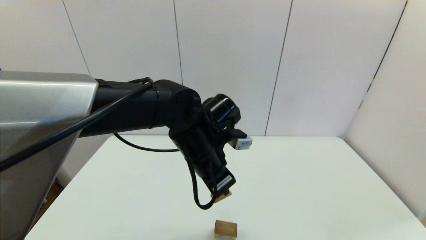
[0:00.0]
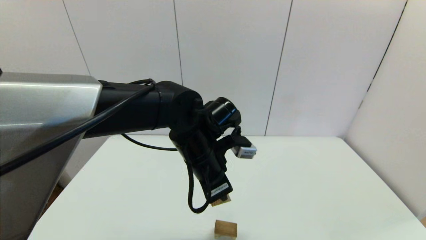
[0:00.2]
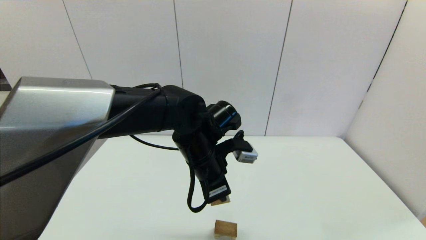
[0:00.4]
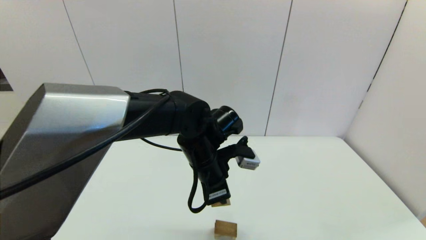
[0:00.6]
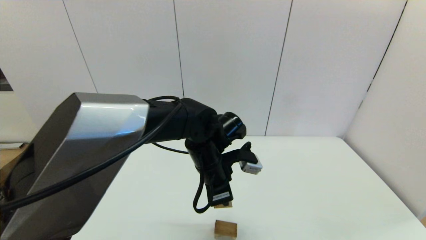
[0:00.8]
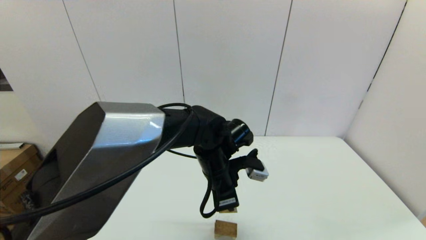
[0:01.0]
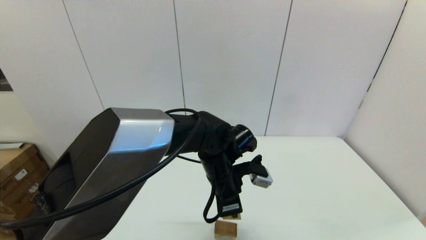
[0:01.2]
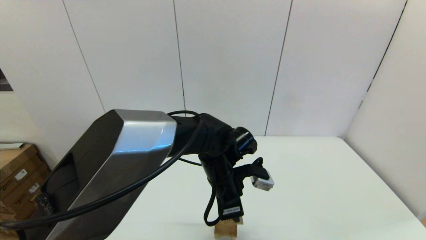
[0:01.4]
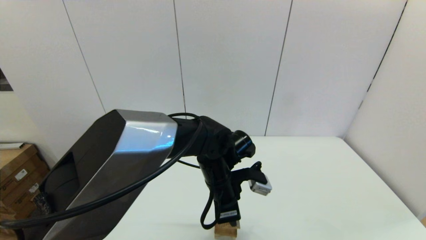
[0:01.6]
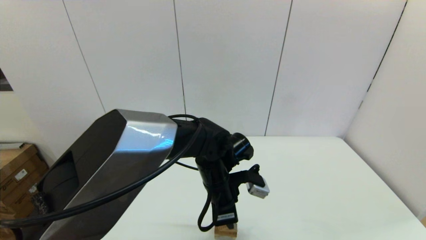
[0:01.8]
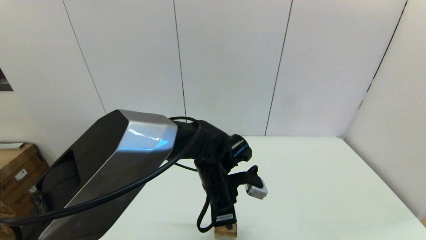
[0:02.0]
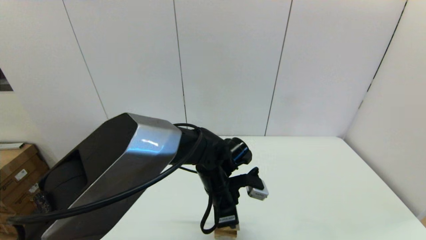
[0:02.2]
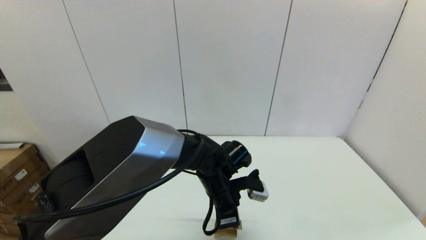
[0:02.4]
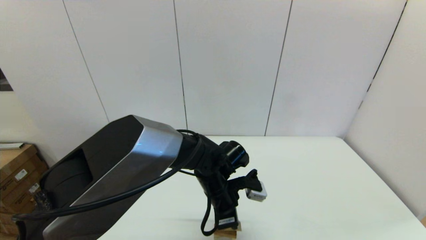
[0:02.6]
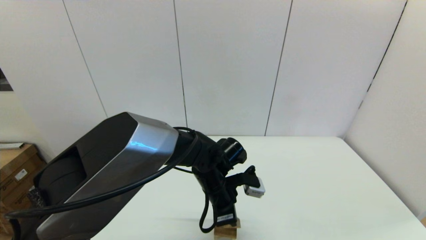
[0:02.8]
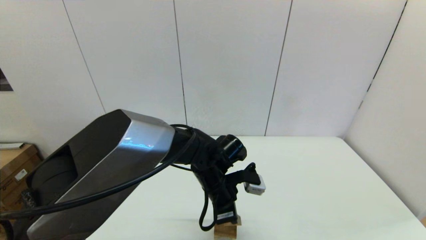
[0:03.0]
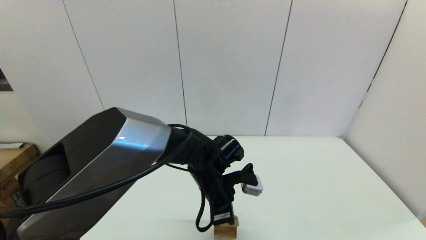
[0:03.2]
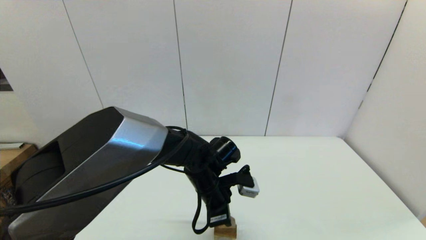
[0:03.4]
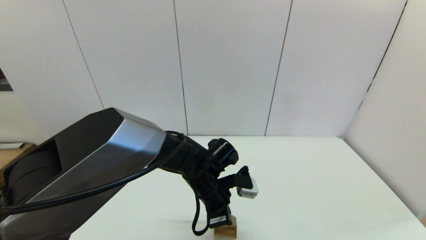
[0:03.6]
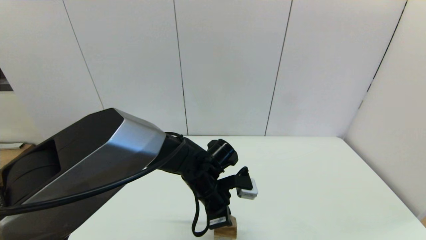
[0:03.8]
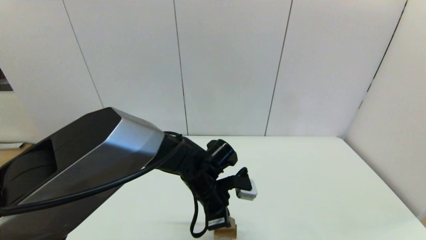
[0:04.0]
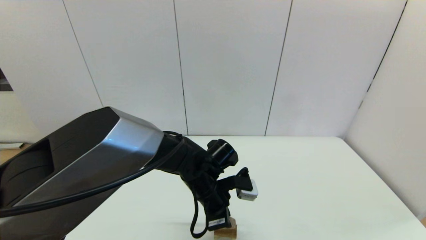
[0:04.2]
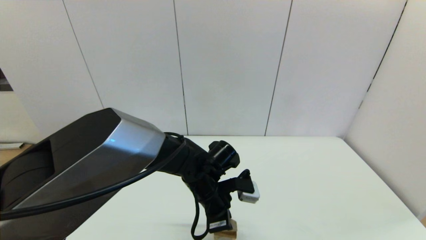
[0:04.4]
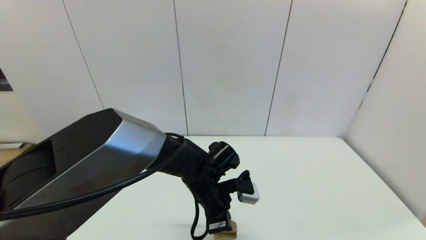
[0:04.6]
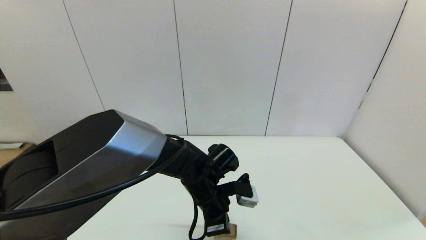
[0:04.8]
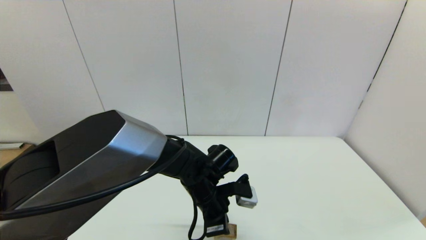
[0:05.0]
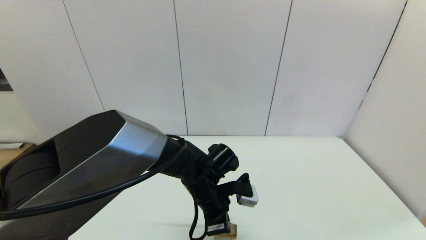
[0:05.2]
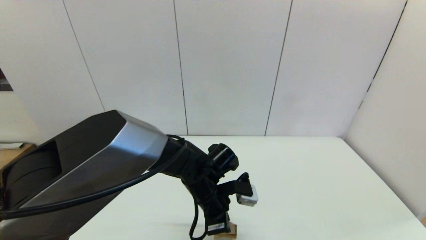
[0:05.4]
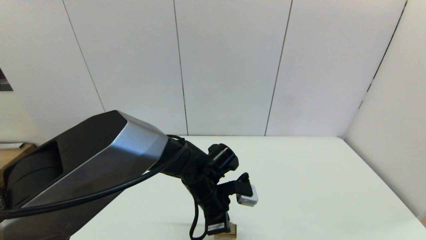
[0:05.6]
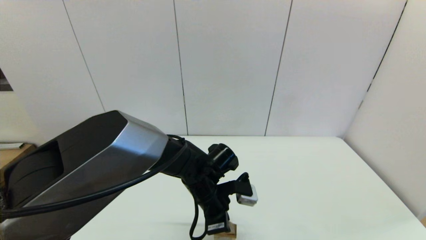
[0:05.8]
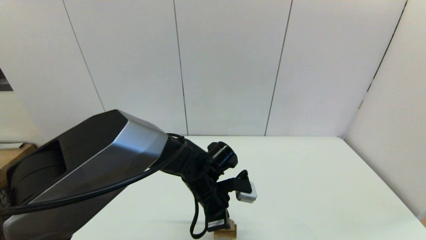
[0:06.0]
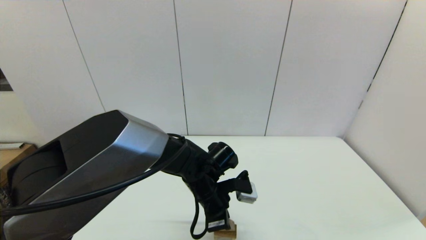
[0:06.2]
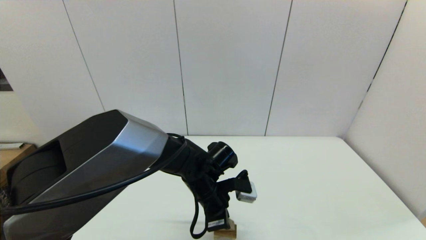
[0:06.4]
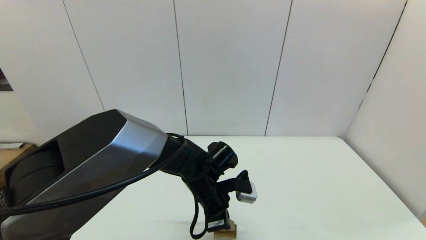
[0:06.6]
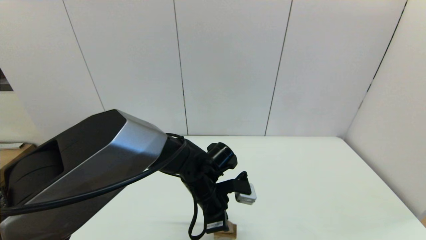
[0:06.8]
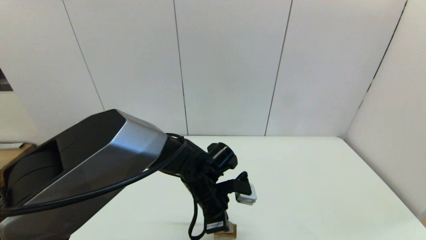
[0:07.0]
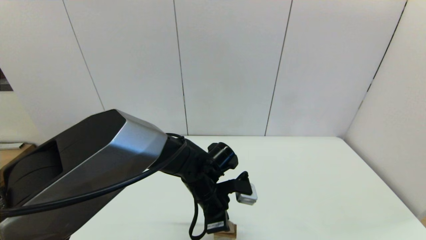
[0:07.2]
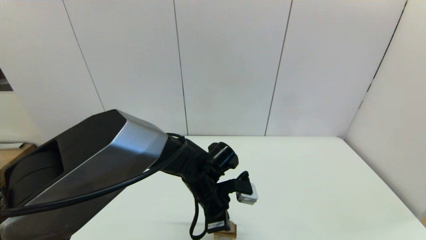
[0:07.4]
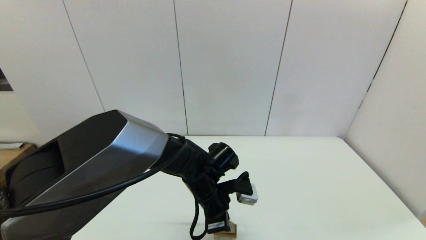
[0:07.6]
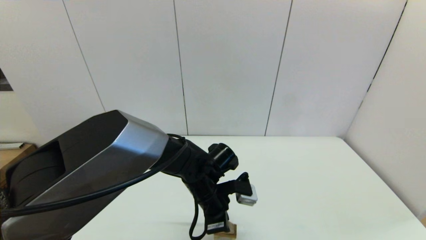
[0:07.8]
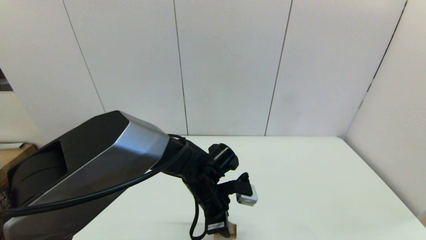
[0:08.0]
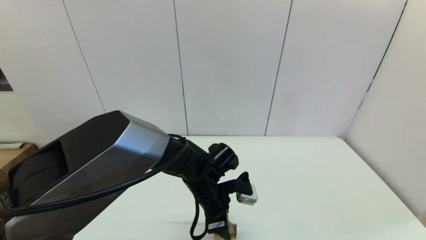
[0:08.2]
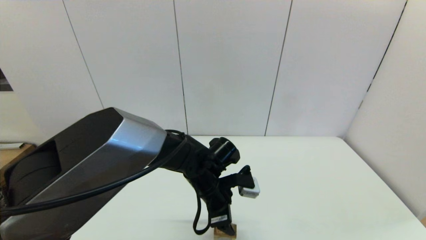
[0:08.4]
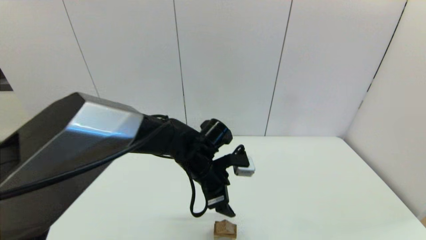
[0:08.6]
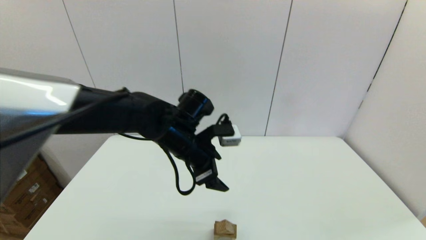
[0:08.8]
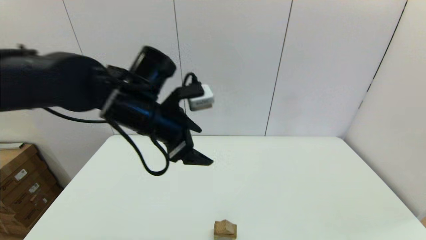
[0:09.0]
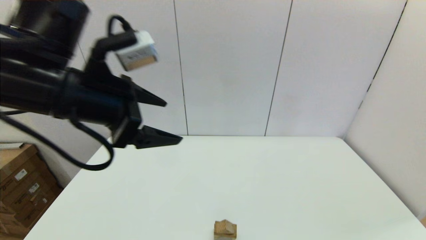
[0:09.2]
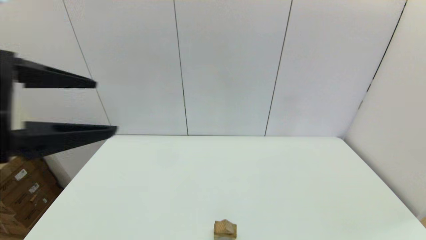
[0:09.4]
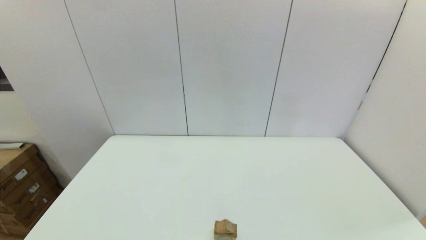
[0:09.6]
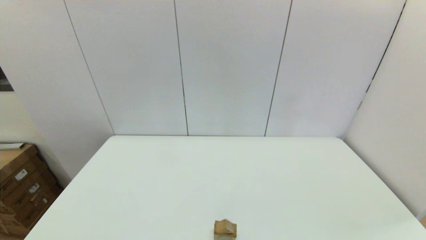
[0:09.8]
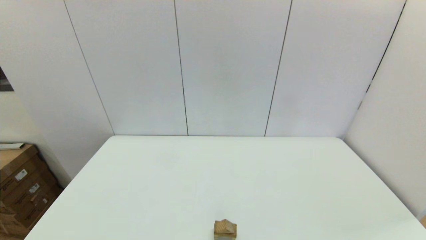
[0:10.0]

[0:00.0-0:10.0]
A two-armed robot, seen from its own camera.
Task of the whole recording: place the arched building blocks in the center of the table, set up the rectangular building blocks, and then set up the triangular building blocks.
0:00.0 to 0:01.4: The left gripper travels downward by some 10 cm.
0:01.4 to 0:04.2: There are only small adjustments of the grippers.
0:04.2 to 0:07.2: Neither gripper changes place.
0:07.2 to 0:08.6: The left gripper heads upward, covering about 5 cm, and opens up.
0:08.6 to 0:10.0: The left gripper travels backward, to the left and upward by approximately 50 cm.
